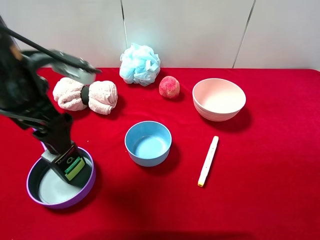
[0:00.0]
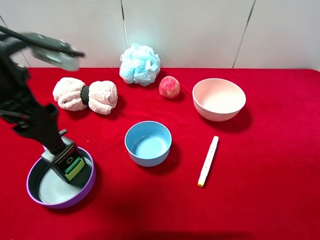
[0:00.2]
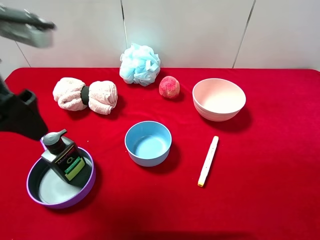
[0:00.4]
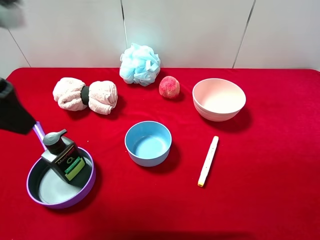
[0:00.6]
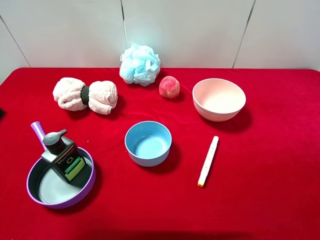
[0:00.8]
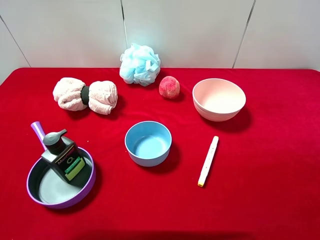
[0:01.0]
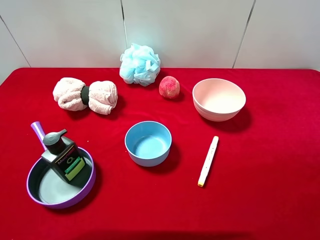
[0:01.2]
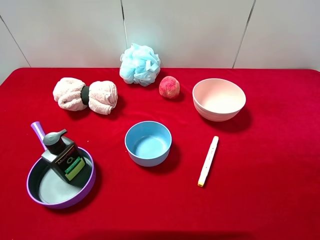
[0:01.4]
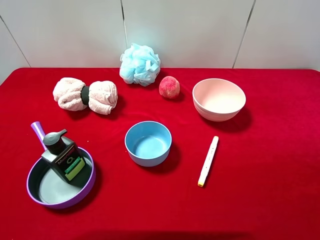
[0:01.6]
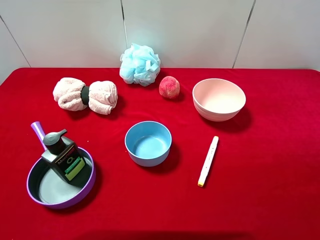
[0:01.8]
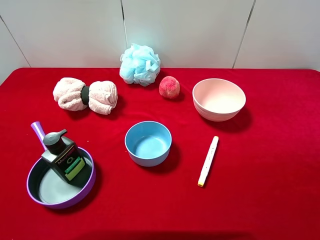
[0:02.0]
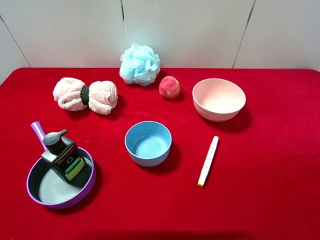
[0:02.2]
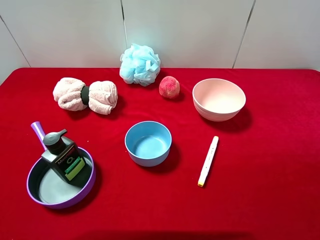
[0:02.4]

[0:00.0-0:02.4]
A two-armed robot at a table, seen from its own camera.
Task of the whole recording: pick up an item with a gripper and place it in a random container on the desktop.
0:00.0 to 0:01.2: The left gripper heads backward, upward and to the left, covering some 25 cm.
